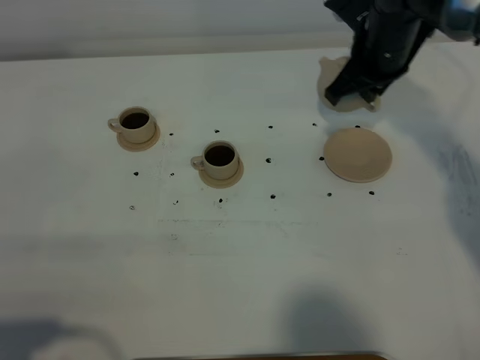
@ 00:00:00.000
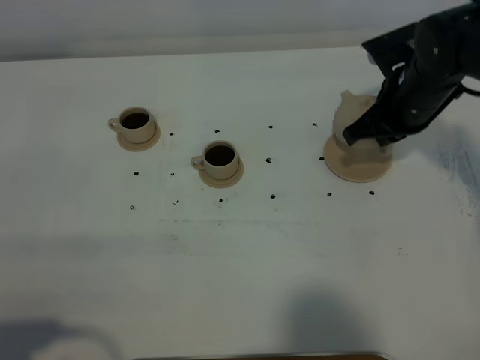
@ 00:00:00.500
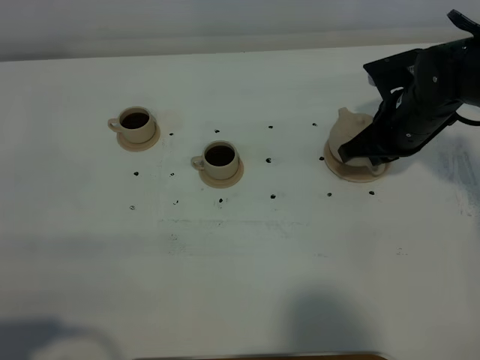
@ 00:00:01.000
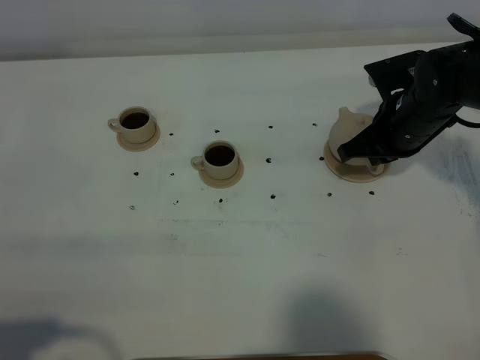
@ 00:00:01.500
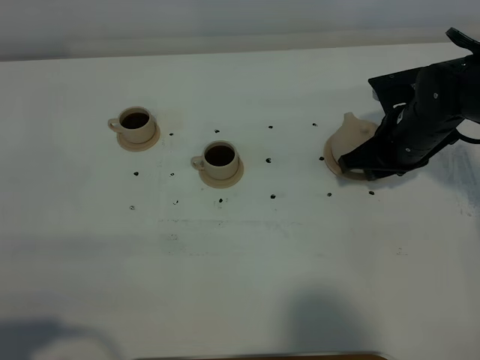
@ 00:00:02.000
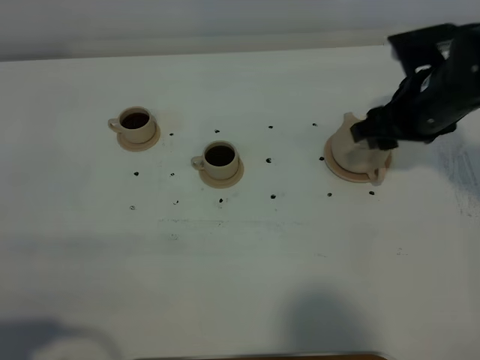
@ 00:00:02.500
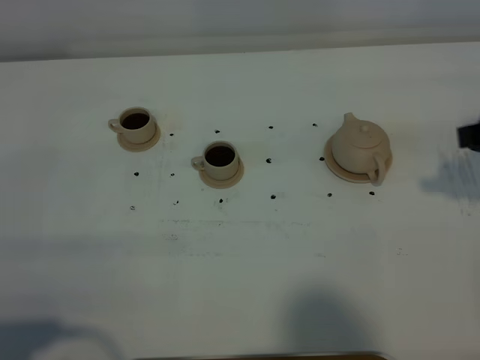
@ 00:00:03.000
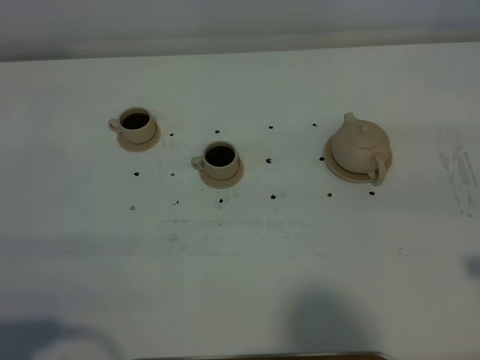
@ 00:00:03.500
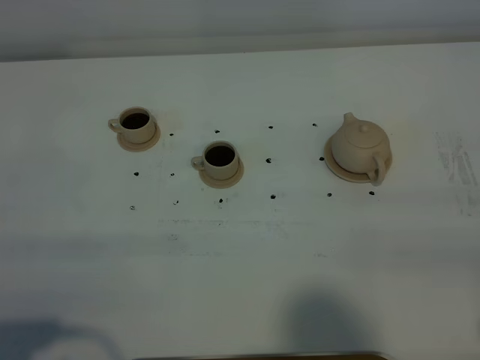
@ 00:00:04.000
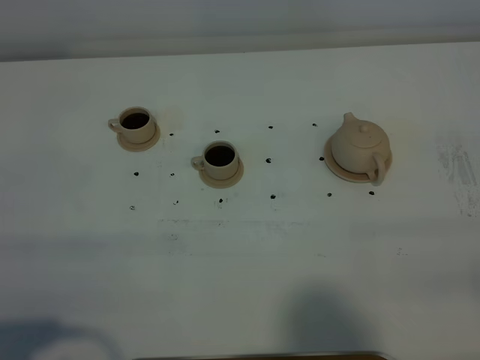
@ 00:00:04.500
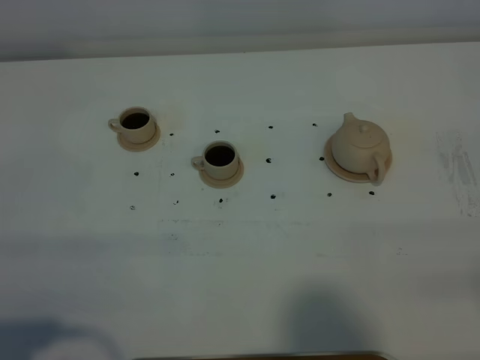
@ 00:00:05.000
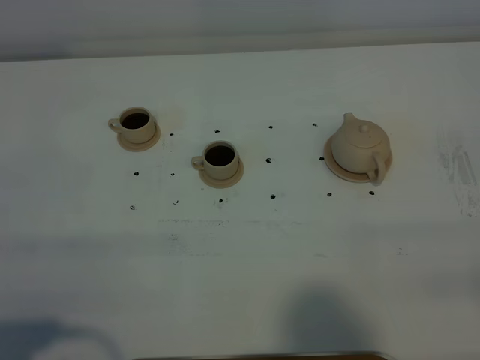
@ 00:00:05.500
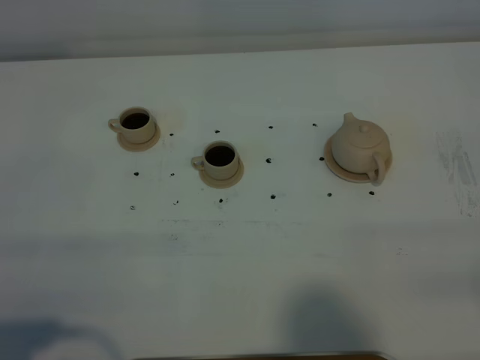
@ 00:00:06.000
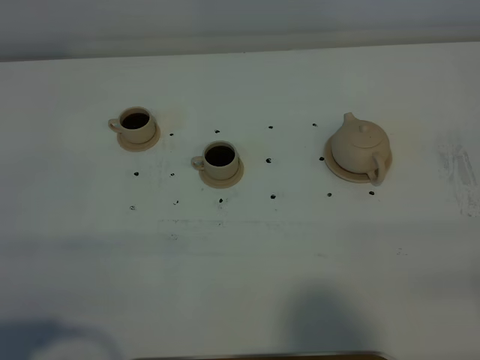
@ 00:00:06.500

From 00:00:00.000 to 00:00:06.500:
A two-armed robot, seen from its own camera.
Task of the whole recording: grasp the brown teapot and pour the tea into the two brown teacups one by one, put the brown teapot back in its original place.
From 00:00:00.000 to 00:00:02.000: The right gripper is displaced downward and backward by approximately 10 cm, and opens its fingers.
From 00:00:02.000 to 00:00:04.500: The right gripper shifts about 35 cm backward.
